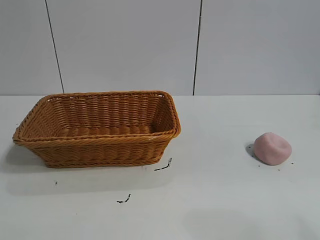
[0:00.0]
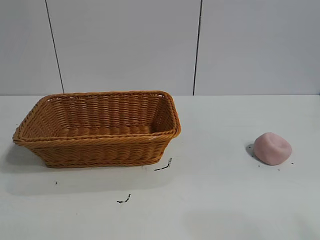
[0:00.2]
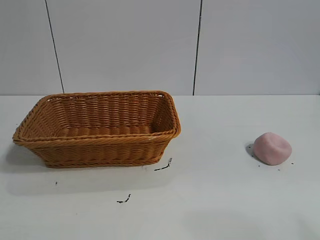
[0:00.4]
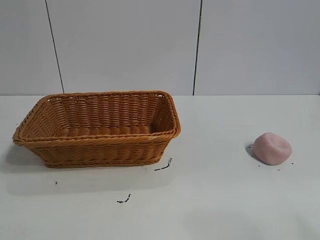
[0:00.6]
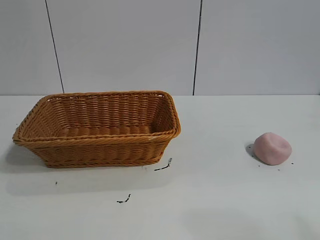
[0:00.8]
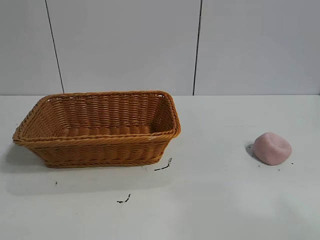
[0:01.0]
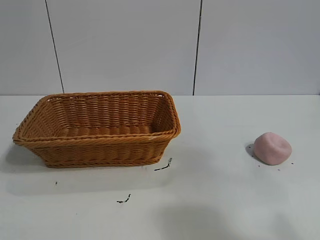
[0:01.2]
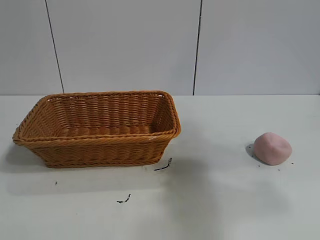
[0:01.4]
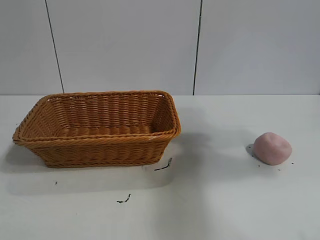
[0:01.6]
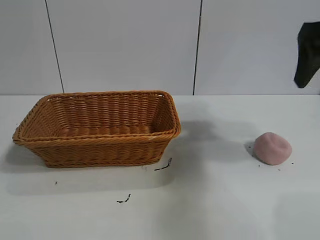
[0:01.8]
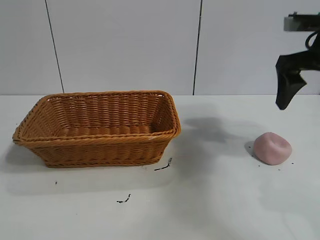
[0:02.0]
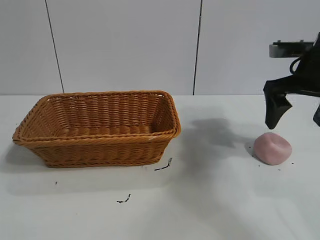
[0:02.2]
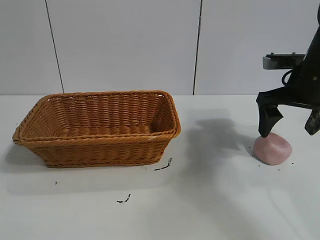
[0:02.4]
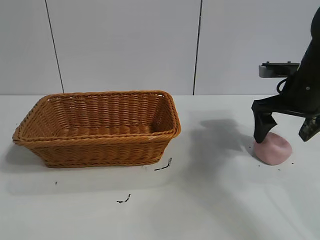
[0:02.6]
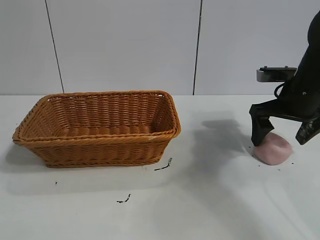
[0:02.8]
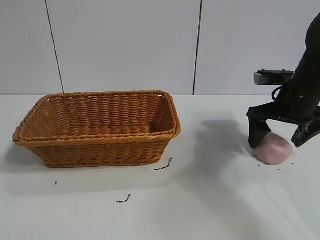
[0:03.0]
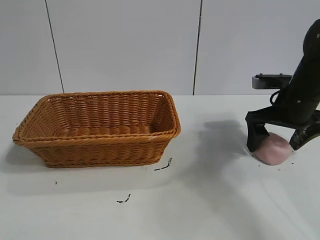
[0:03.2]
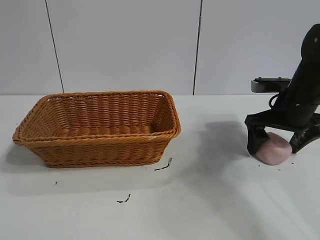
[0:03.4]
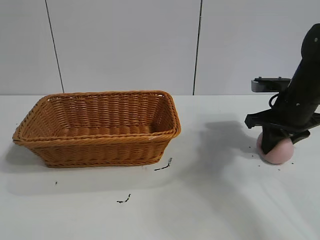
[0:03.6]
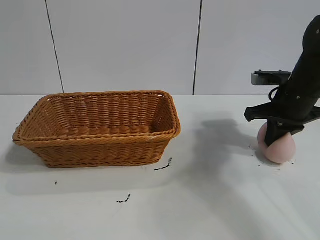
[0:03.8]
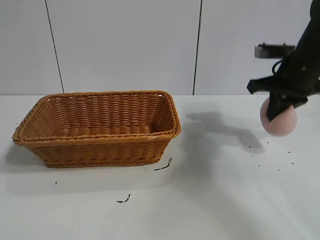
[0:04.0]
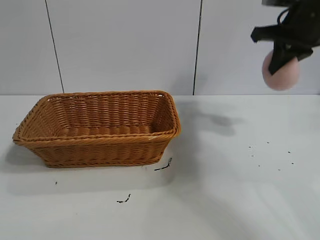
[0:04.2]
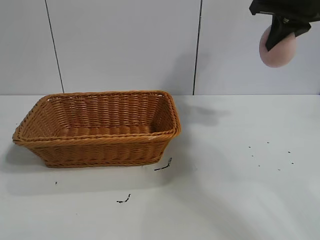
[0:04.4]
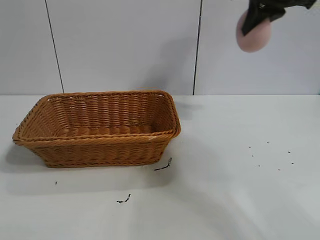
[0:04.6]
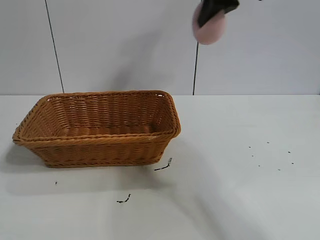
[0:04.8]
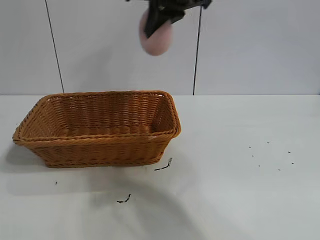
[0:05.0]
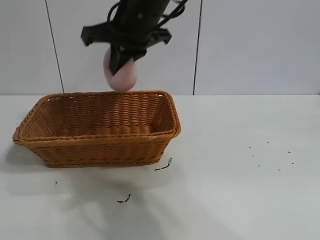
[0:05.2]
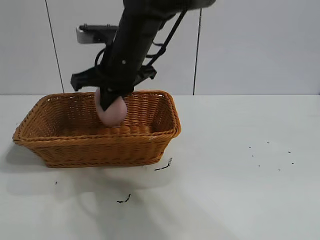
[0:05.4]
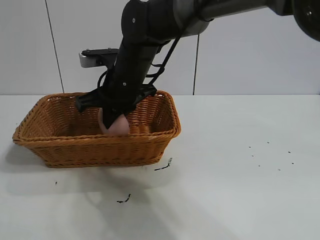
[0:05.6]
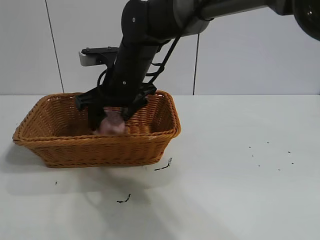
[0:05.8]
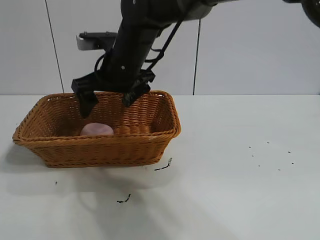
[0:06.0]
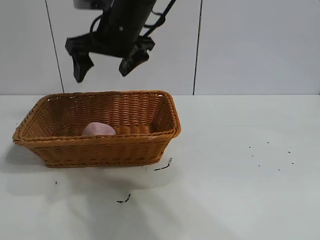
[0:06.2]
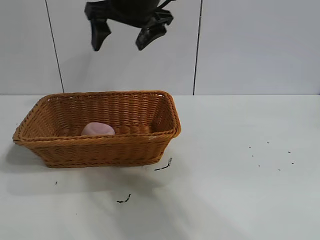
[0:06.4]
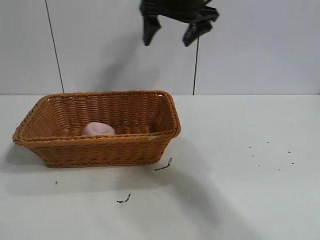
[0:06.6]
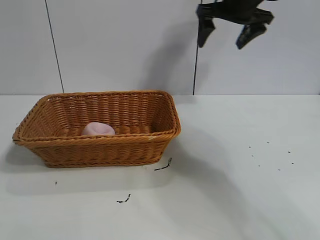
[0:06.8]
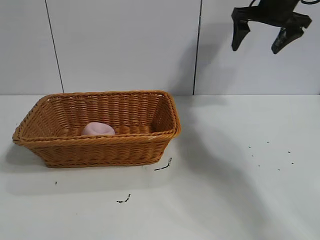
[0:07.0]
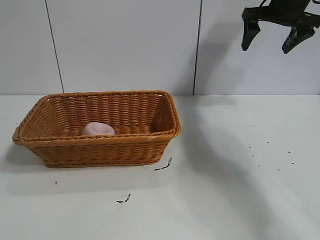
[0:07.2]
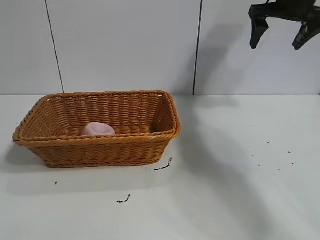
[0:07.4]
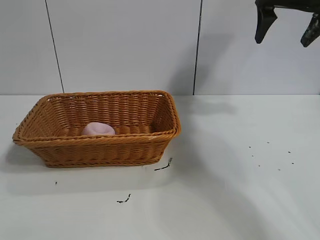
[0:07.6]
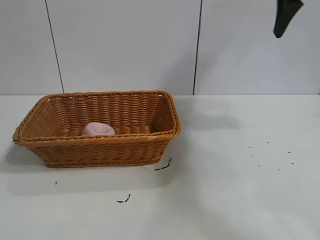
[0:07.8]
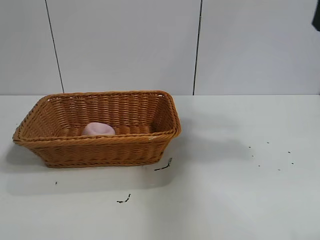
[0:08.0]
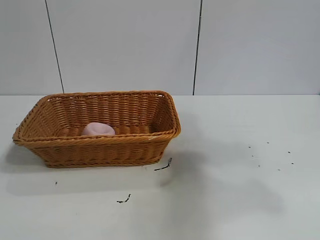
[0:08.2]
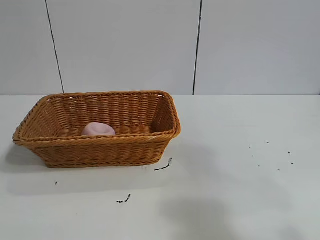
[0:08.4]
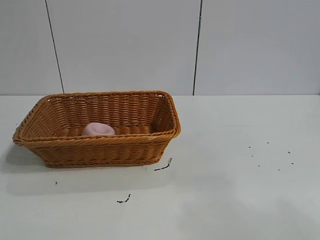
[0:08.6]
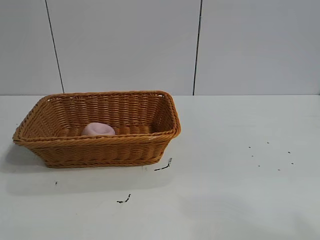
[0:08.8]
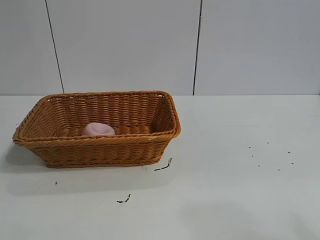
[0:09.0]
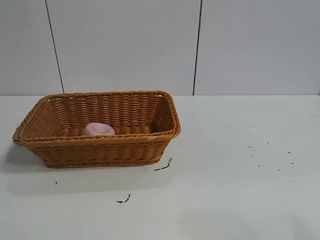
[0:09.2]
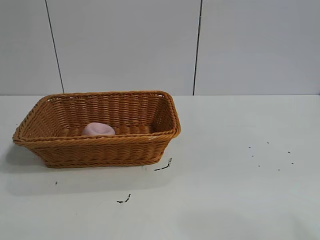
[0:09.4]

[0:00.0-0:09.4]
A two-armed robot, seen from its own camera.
Task of the whole recording: pick up the peach and put it into the basket.
Step, 0:01.0 to 0:03.6: Grasp the peach with right gripper.
Step, 0:03.8 to 0:05.8: Place the peach in the basket with right gripper.
